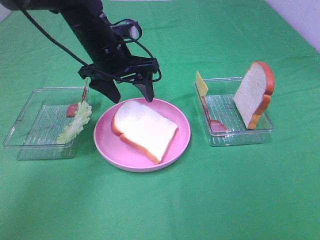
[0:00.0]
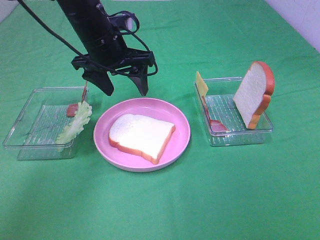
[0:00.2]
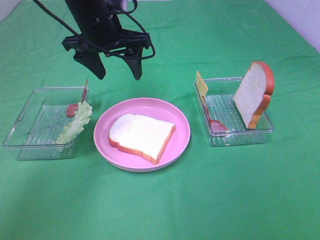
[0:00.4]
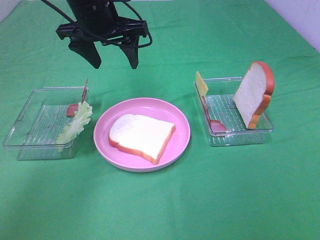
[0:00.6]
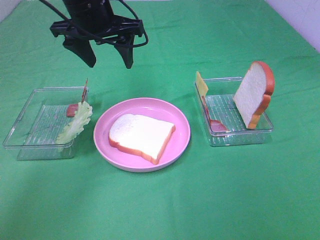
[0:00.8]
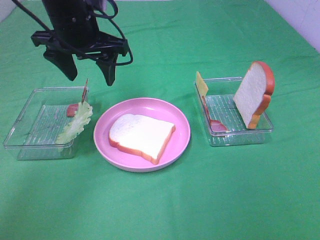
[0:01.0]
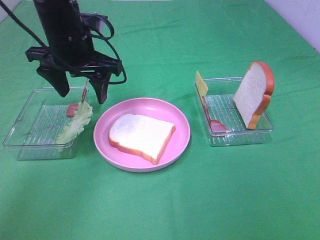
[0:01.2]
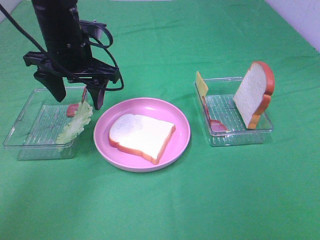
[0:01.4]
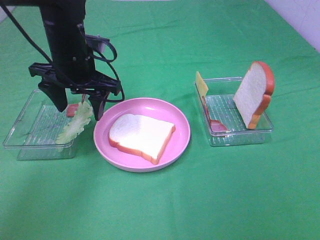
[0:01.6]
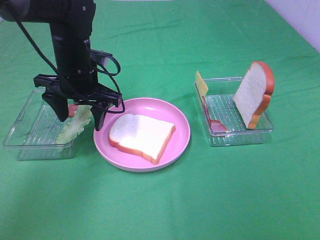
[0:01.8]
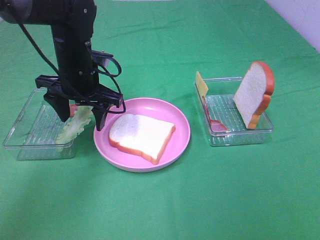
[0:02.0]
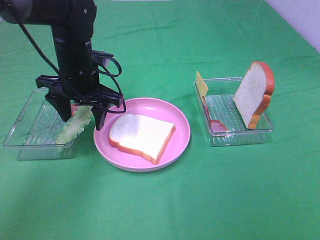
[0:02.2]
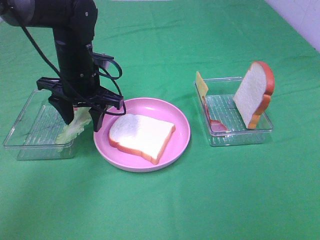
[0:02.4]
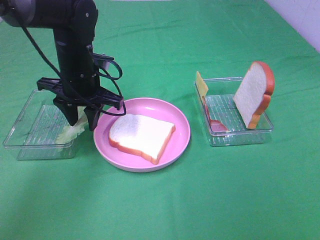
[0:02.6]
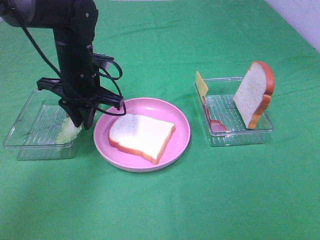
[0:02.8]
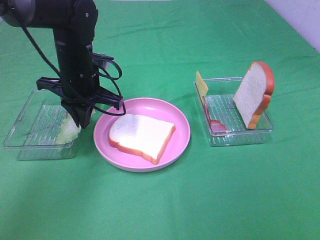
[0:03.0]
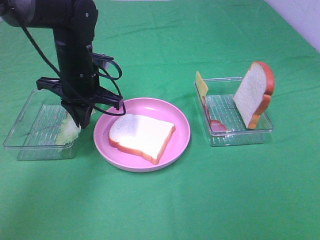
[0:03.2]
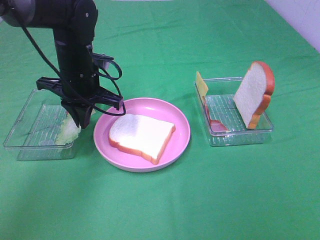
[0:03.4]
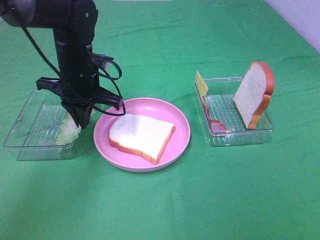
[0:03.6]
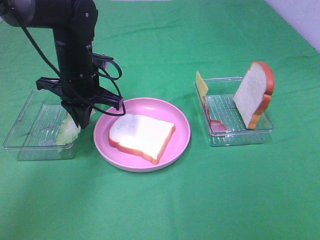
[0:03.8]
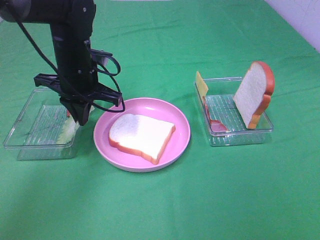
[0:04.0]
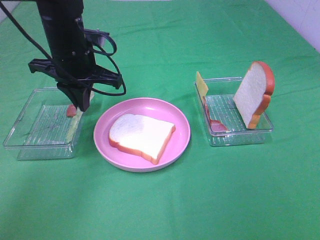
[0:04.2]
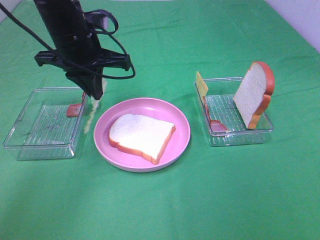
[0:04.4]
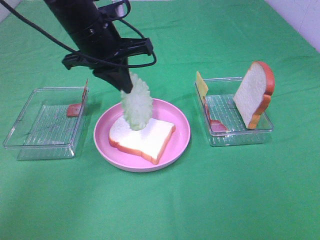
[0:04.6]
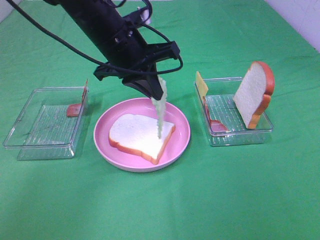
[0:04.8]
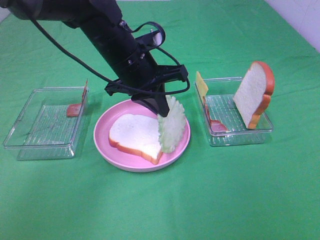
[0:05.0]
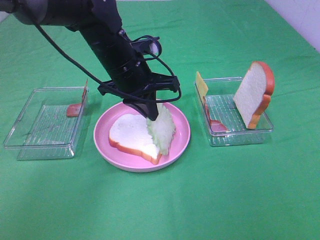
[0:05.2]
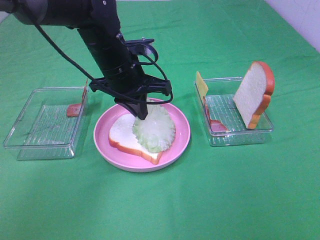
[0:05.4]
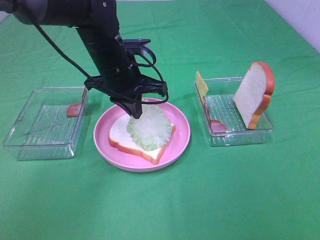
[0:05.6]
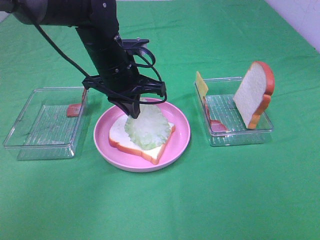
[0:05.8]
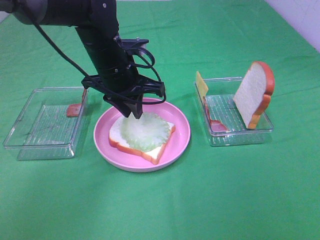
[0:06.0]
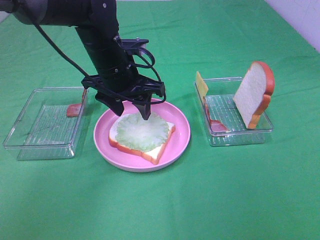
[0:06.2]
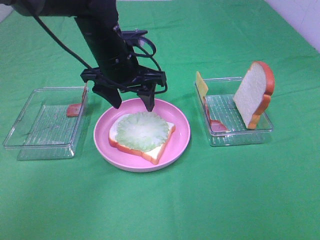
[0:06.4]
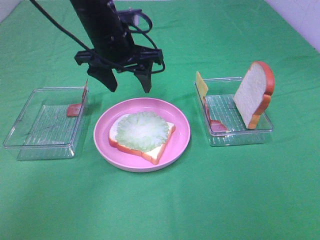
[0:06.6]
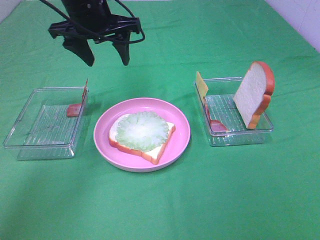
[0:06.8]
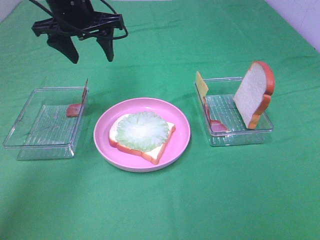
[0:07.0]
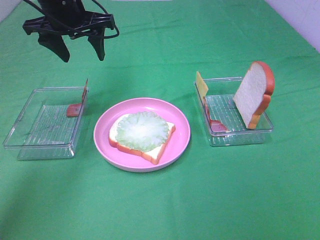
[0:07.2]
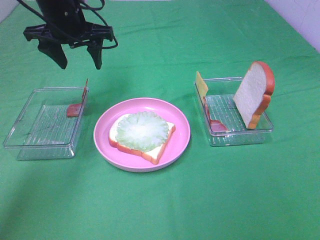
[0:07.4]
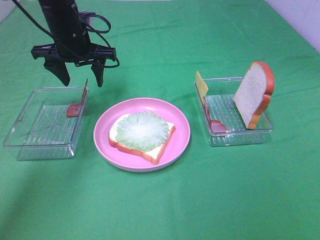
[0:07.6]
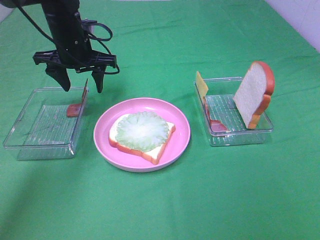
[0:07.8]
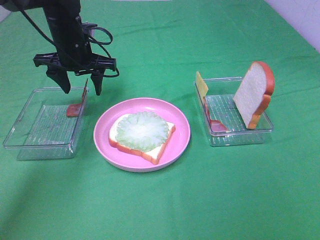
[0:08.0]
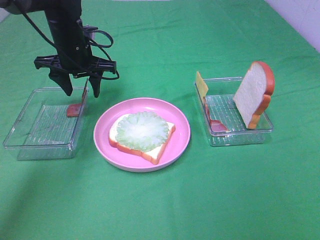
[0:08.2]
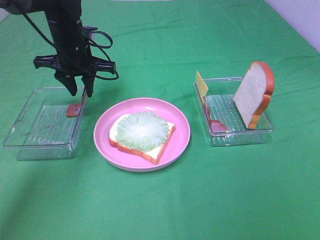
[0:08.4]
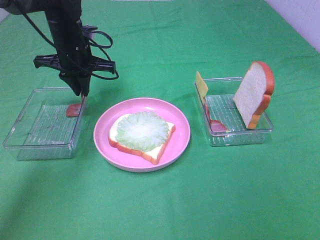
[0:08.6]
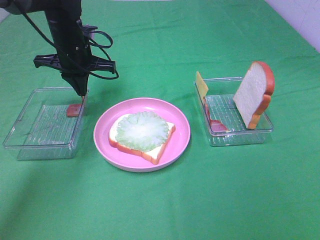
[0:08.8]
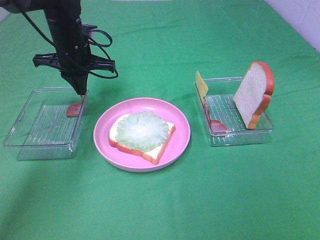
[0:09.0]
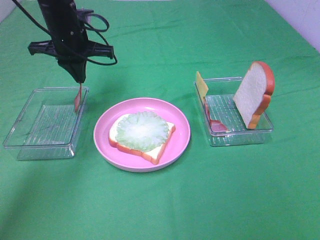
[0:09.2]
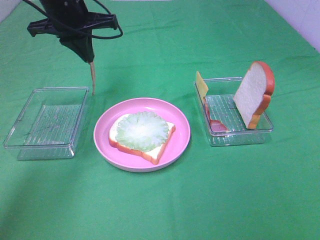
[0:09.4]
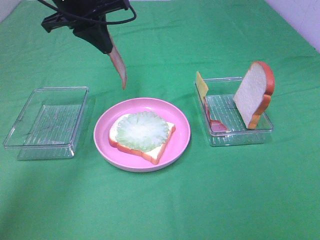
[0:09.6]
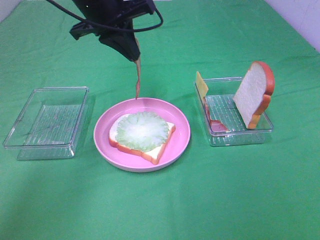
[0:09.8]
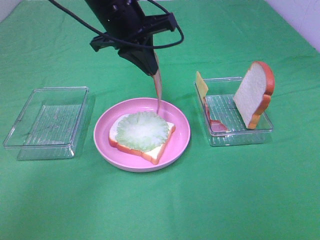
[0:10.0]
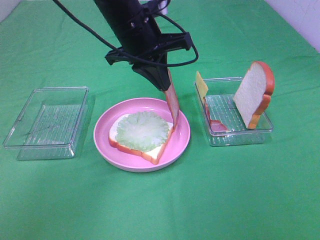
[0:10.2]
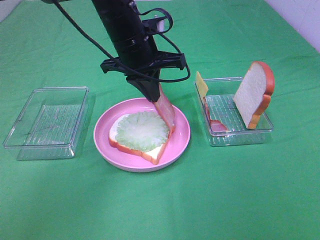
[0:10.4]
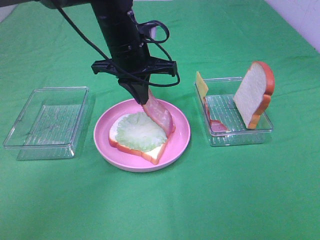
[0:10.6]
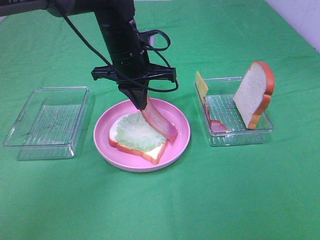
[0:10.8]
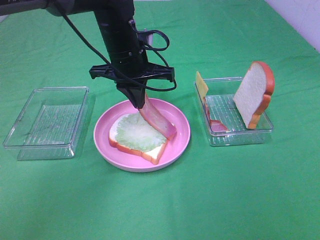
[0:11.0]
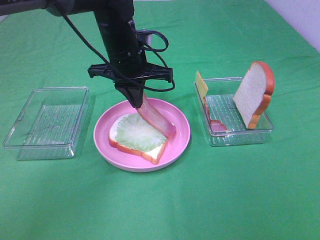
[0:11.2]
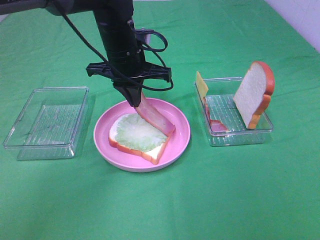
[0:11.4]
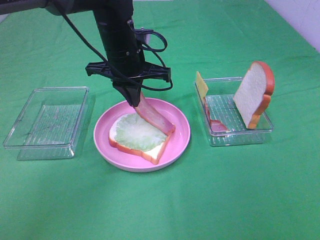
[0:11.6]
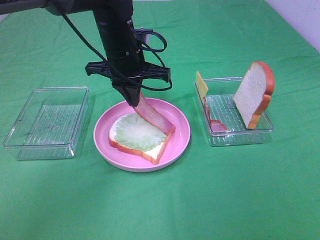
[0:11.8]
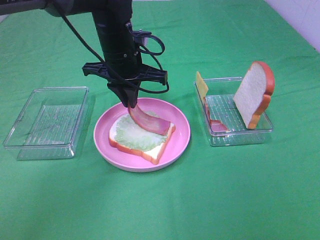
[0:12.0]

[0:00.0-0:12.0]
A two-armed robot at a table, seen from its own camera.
Task of the whole recording: Make sandwiches.
Step, 0:00.2 to 0:03.0: Left hand:grab the lettuce slice.
Step, 0:03.2 to 0:06.2: Left hand:place the lettuce slice on the bread slice.
Step, 0:06.4 to 0:08.8: Left hand:grab the bacon.
0:00.0 to 0:01.6: The left gripper reaches approximately 5 cm upward, then returns.
0:01.6 to 0:03.0: The left gripper closes up.
0:03.0 to 0:04.4: The left gripper travels upward by approximately 5 cm.
0:04.4 to 0:06.0: The left gripper shifts roughly 10 cm downward and to the right, and opens its fingers.
0:06.0 to 0:07.6: The left gripper is displaced to the left and forward by roughly 10 cm, and opens its fingers.
0:07.6 to 0:09.0: The left gripper closes.
0:09.0 to 0:10.4: The left gripper goes roughly 15 cm to the right and backward.
0:10.4 to 0:12.0: The grippers stay close to where they were, moving slightly.

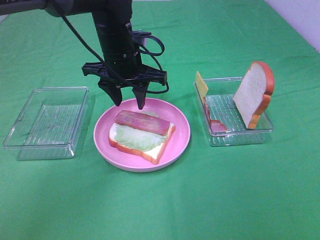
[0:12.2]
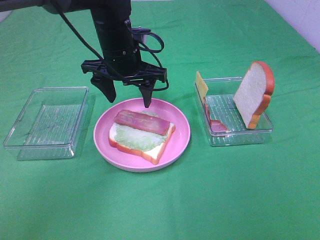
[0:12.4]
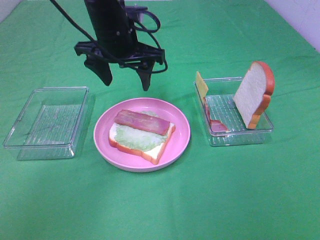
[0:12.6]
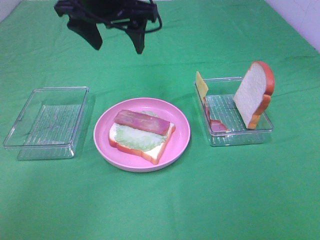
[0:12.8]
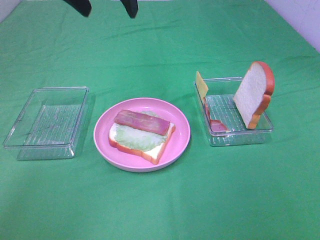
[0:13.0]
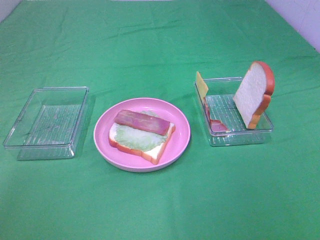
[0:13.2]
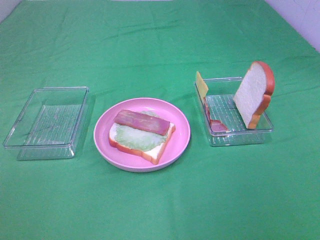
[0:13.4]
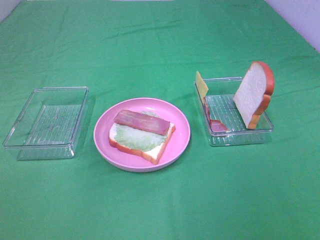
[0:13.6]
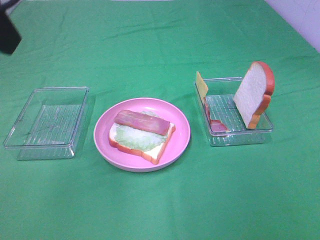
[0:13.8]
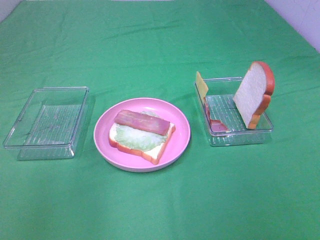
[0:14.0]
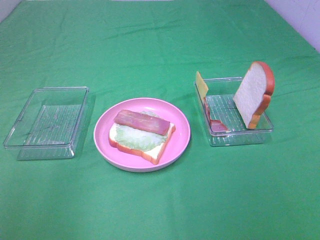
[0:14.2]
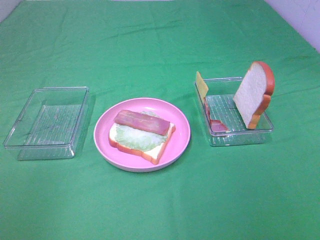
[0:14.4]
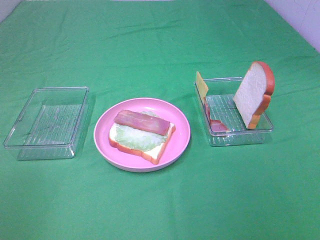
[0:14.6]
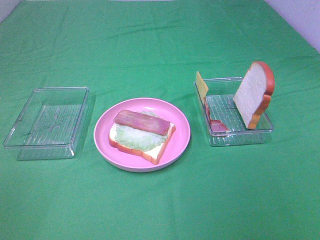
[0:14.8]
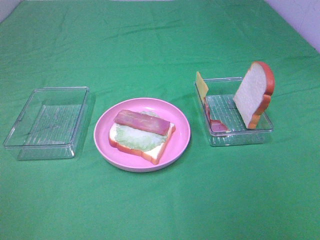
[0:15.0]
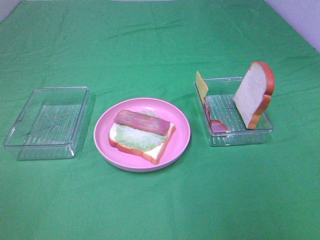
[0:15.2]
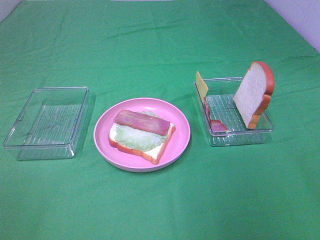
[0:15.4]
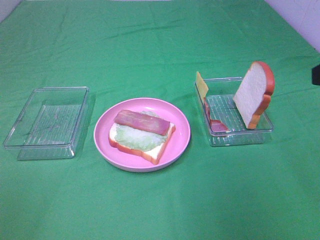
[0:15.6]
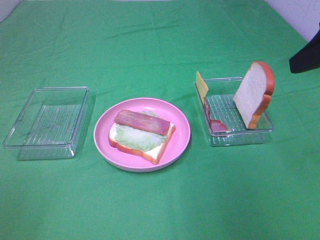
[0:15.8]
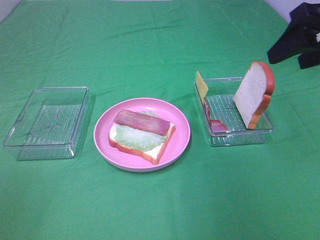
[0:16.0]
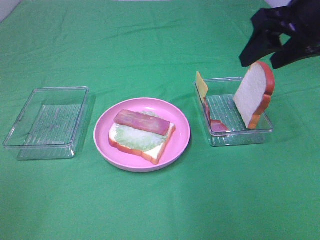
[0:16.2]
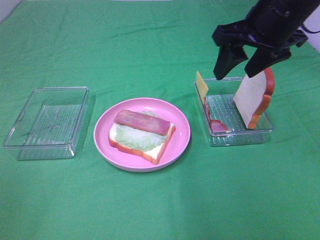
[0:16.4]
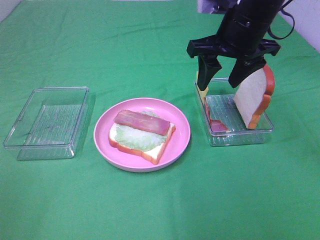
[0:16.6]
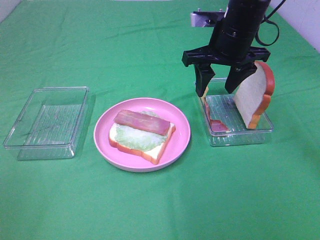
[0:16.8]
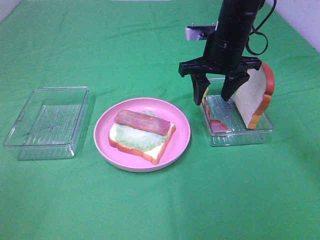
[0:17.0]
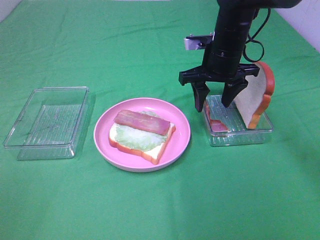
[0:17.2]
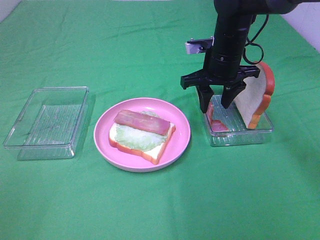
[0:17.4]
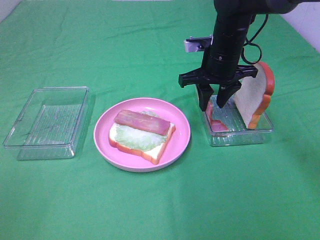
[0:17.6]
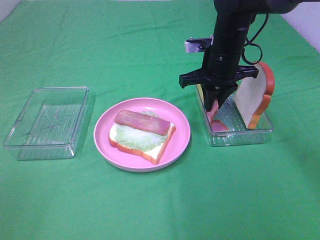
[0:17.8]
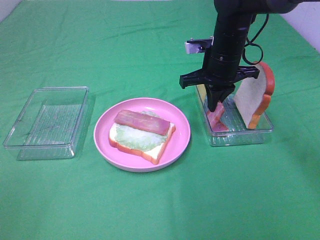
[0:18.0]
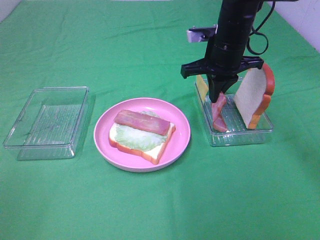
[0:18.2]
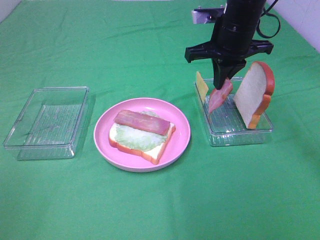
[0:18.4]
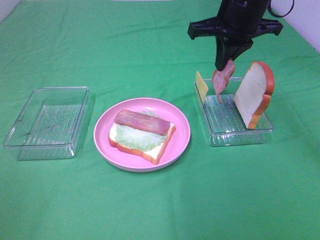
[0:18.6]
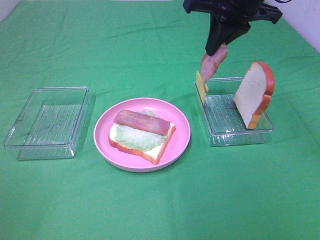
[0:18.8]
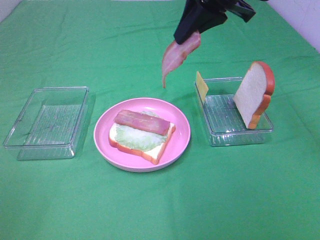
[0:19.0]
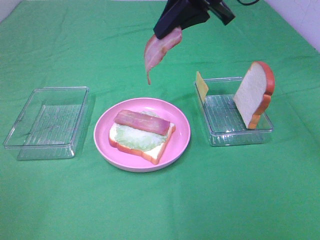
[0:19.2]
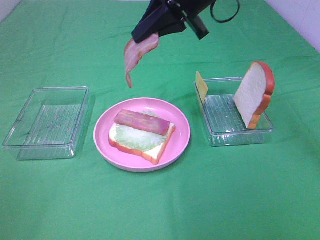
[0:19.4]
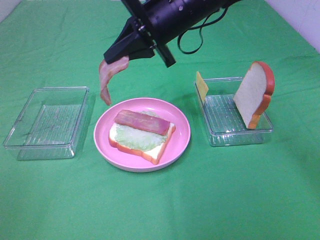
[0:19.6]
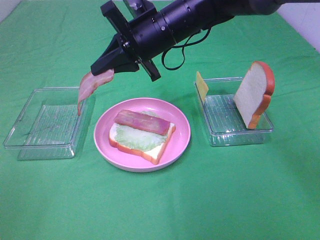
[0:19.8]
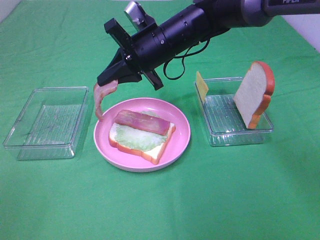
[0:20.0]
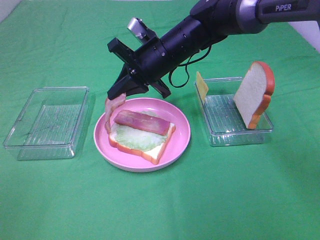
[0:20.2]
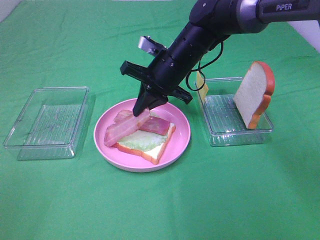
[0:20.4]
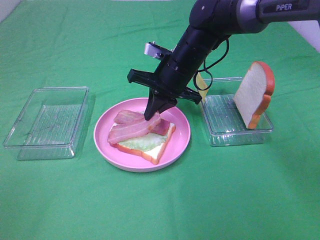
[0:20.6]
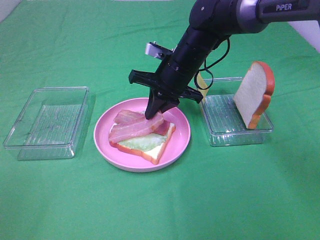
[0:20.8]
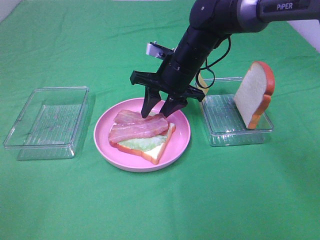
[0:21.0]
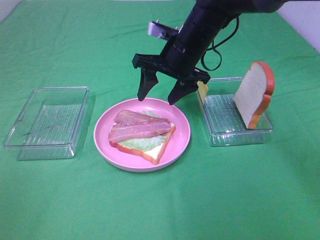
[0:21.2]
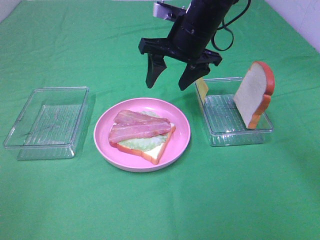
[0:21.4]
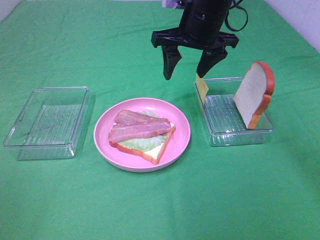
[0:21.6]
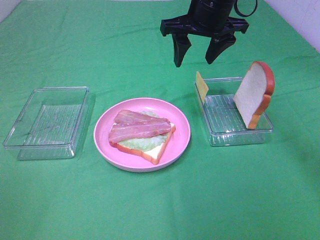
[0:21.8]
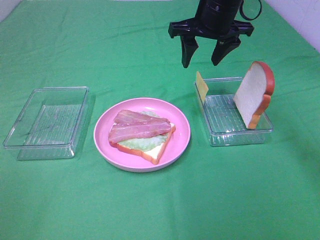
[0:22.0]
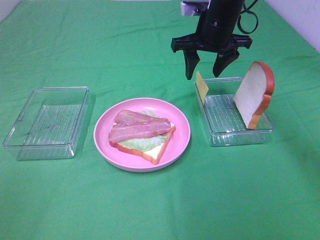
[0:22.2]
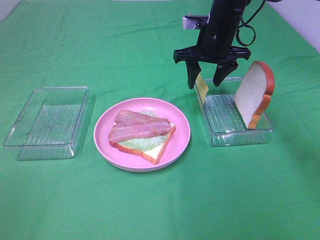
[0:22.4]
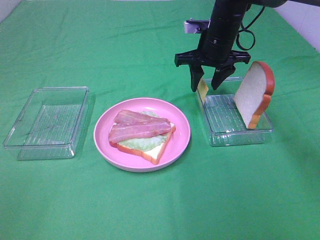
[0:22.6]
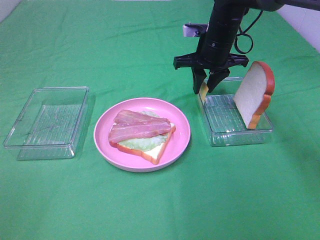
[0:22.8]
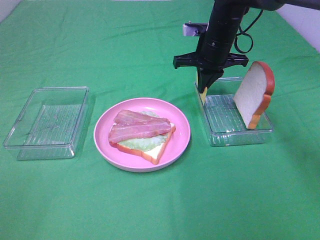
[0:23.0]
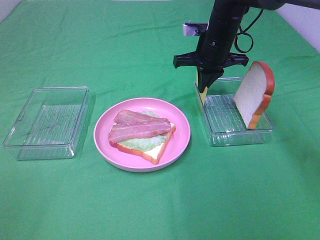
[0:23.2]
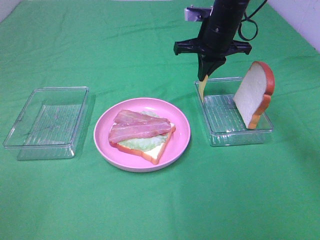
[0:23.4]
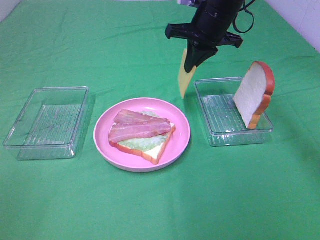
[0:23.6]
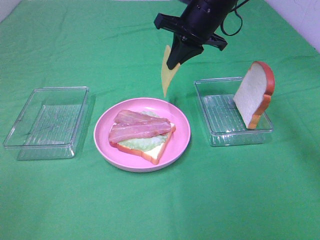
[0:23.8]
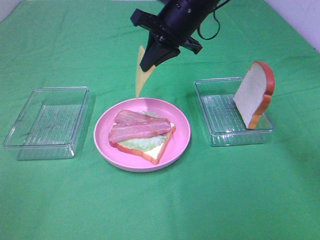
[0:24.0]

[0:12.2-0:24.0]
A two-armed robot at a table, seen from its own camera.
Task of the whole recording: Make sandwiches.
Step, 0:12.6 to 0:18.0: Right hand:grab the bacon.
Step, 0:18.2 to 0:21.0: Right hand:place bacon on bacon.
Step, 0:21.2 to 0:23.2: Right hand:grab the cheese slice.
0:12.2 to 0:13.6: The left gripper moves upward, backward and to the left, some 35 cm.
0:15.2 to 0:16.6: The right gripper goes some 35 cm forward and to the left.
0:16.6 to 0:18.2: The right gripper moves downward, about 5 cm, and closes up.
0:18.2 to 0:19.6: The right gripper travels to the left by some 10 cm, and goes upward and returns, some 15 cm each way.
0:19.6 to 0:21.0: The right gripper moves downward, some 10 cm, and opens.
0:21.0 to 0:22.6: The right gripper goes roughly 10 cm to the right and forward, and goes upward and returns, about 10 cm each way.
0:22.6 to 0:24.0: The right gripper travels to the left and upward by some 10 cm, and closes its fingers.
